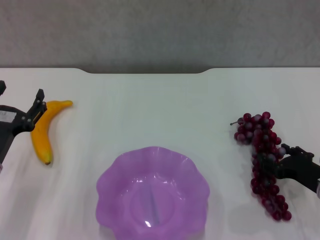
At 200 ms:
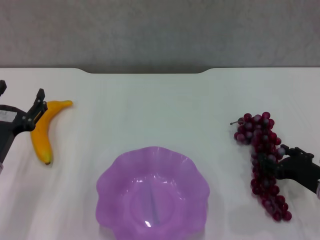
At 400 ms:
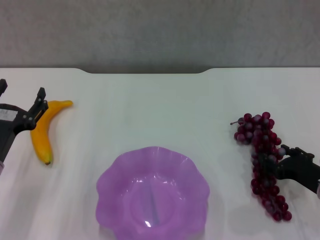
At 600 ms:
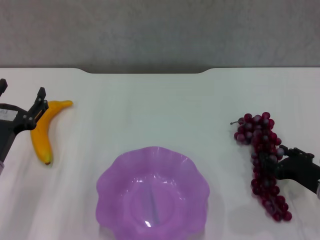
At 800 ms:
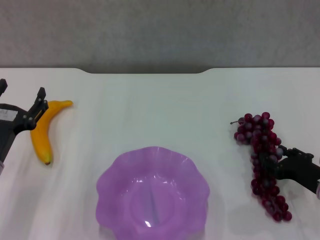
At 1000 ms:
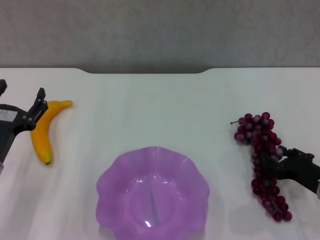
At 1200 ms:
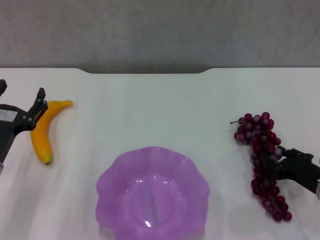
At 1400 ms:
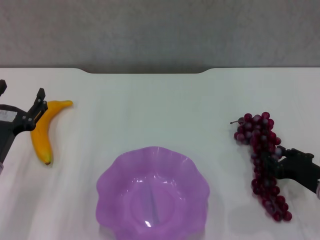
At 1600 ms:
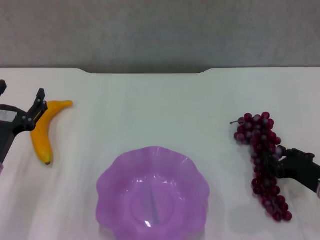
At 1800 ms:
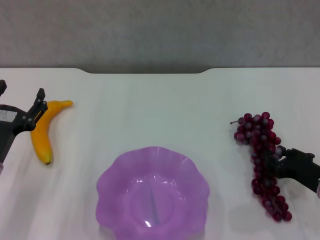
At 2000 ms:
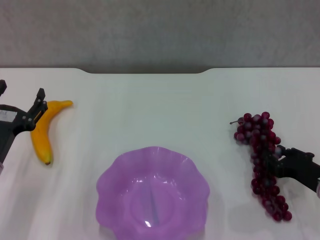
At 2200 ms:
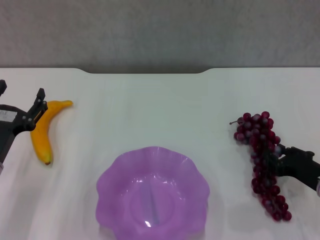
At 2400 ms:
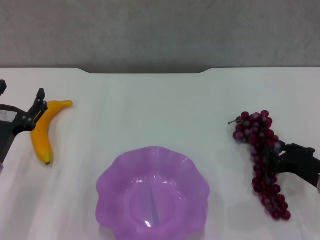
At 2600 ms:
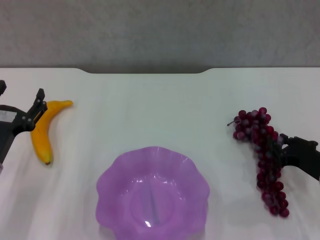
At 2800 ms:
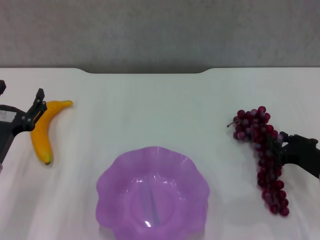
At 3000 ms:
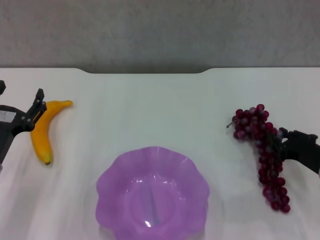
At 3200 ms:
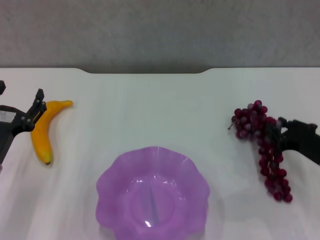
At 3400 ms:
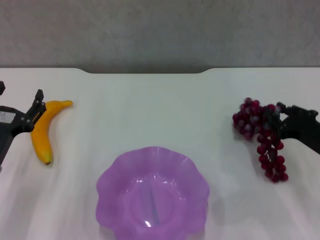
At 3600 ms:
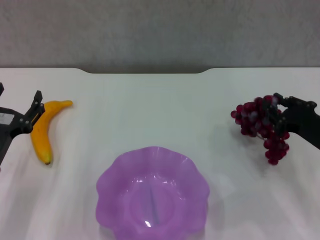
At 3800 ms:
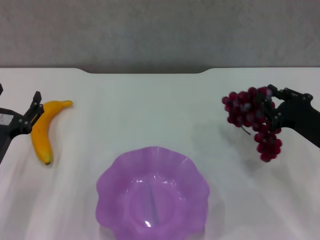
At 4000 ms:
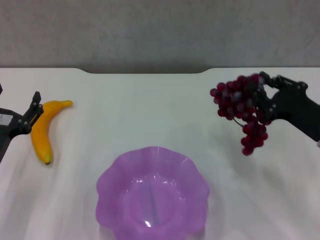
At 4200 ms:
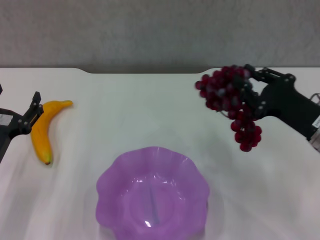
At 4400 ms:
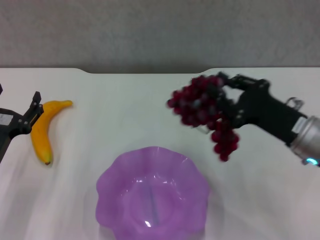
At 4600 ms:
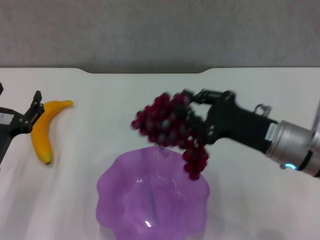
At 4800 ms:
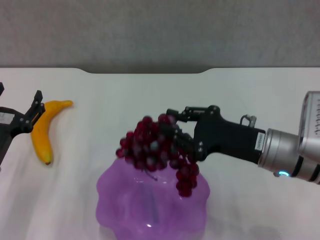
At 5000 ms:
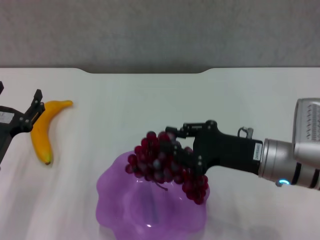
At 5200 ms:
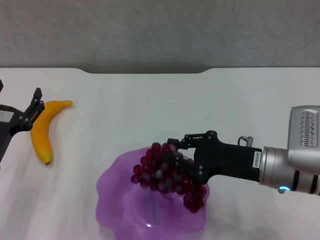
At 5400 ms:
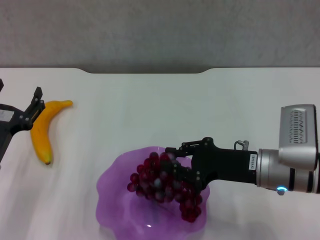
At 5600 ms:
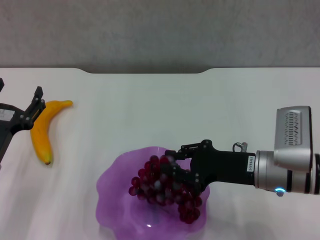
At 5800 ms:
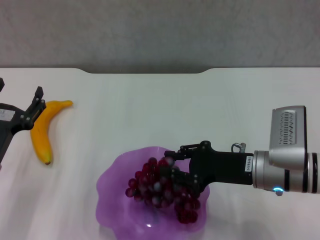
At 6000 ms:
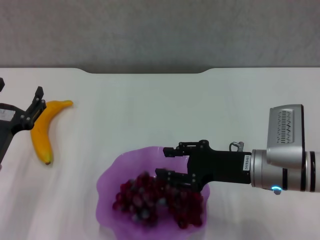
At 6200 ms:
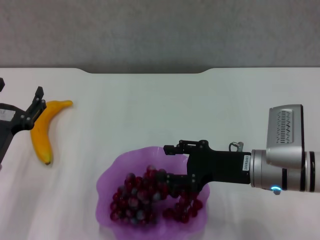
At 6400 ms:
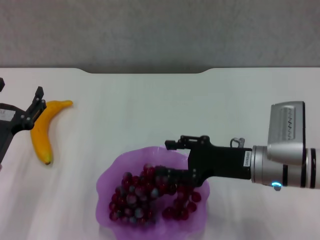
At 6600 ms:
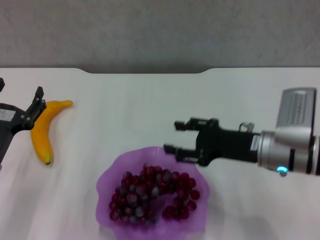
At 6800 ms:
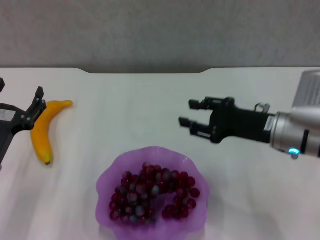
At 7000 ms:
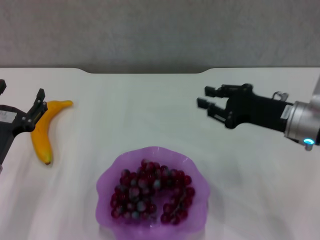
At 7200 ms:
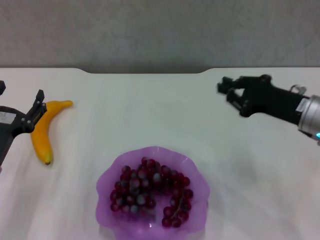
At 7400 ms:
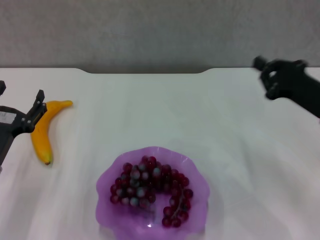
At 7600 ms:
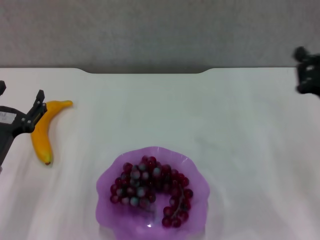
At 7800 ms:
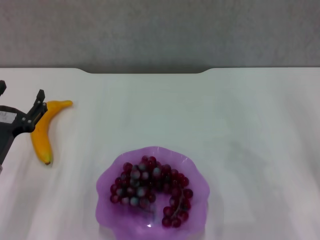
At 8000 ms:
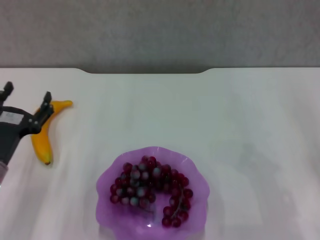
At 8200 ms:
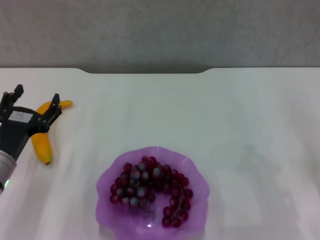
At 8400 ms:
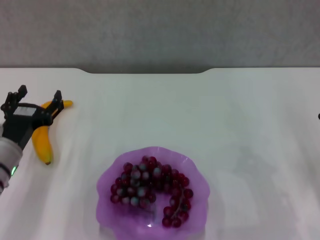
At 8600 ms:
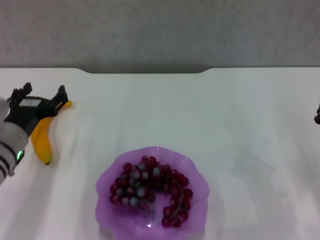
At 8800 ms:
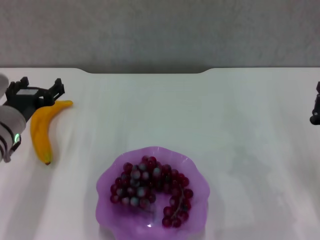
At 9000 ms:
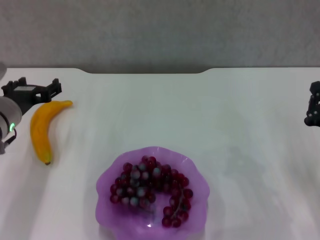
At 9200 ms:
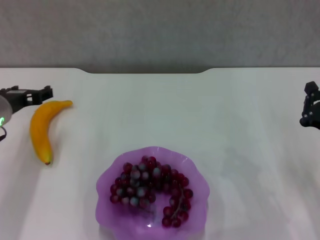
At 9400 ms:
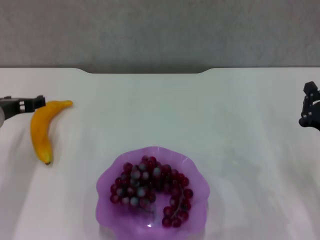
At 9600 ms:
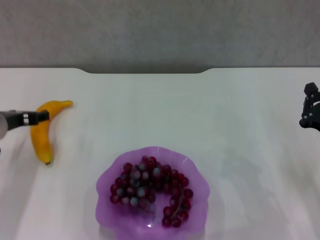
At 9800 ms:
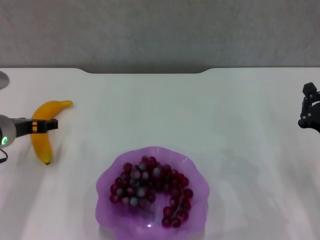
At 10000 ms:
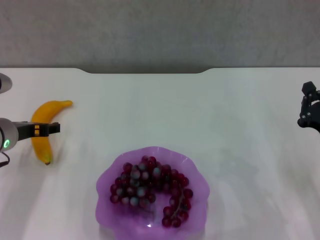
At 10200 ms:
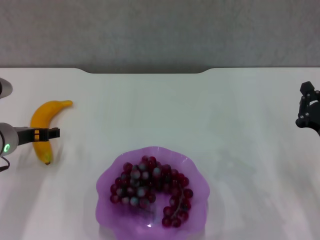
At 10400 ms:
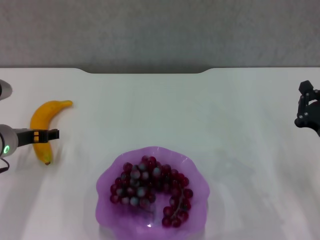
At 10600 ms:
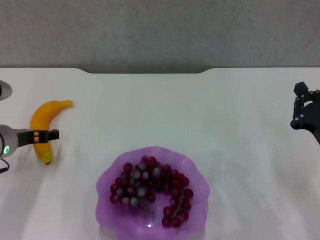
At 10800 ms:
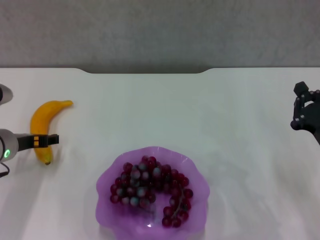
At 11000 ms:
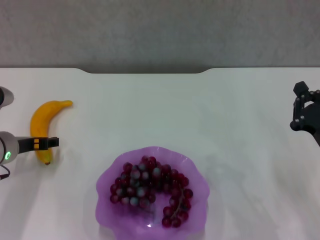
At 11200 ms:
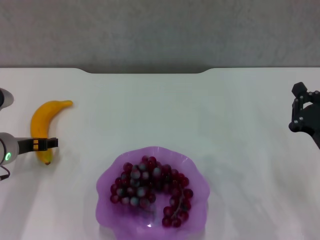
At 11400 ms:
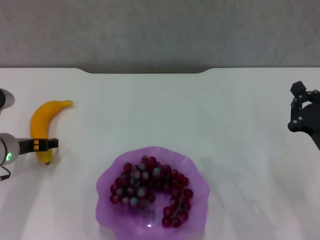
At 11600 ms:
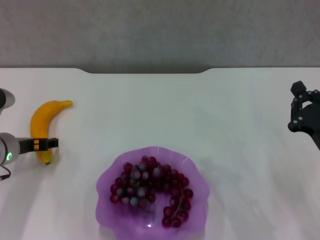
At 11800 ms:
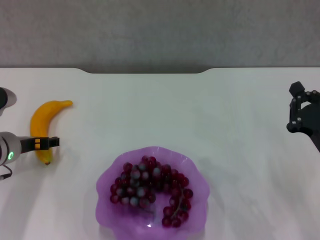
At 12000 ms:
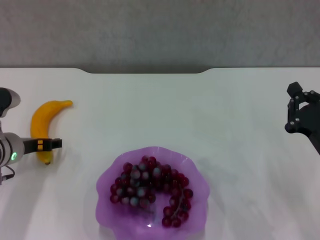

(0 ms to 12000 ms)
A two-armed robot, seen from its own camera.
Step, 2000 ms - 6400 ms: Place the grape in the purple plate with right gripper.
1600 ms - 3000 ms: There are only small adjustments of the grippers.
3000 ms - 4400 ms: The right gripper is displaced upward and to the left by approximately 10 cm.
4400 ms - 6000 ms: The right gripper goes some 5 cm to the left.
6000 ms - 7600 ms: The right gripper moves to the right, about 10 cm, and closes.
7600 ms - 9000 ms: The right gripper ends up roughly 5 cm from where it was. Meanwhile the left gripper heads forward and upward, covering about 10 cm.
10400 ms - 12000 ms: The grippers stay close to where they were, moving slightly.

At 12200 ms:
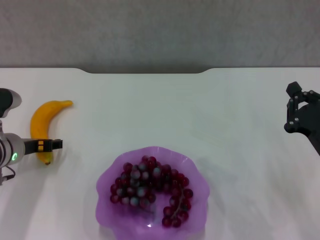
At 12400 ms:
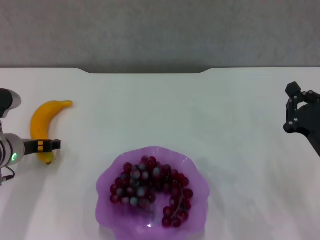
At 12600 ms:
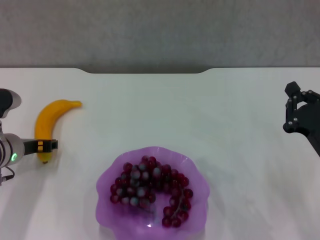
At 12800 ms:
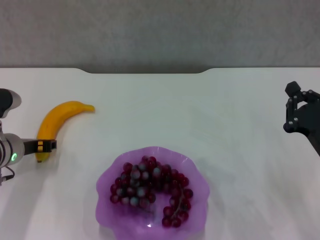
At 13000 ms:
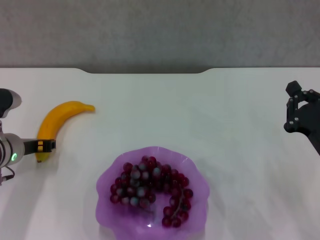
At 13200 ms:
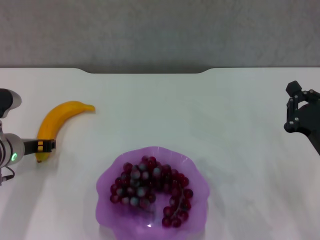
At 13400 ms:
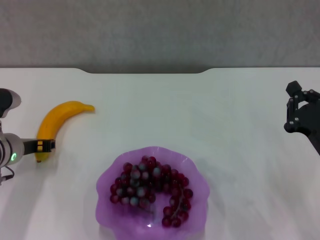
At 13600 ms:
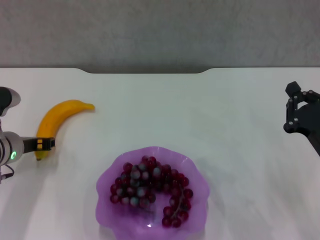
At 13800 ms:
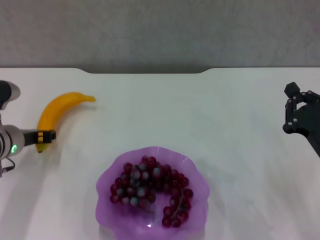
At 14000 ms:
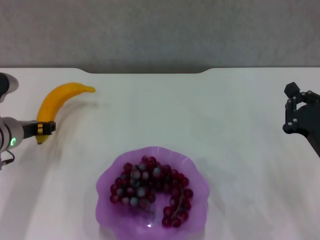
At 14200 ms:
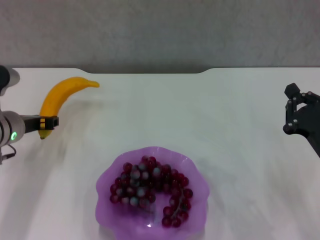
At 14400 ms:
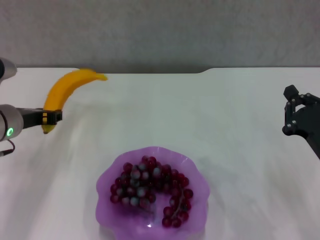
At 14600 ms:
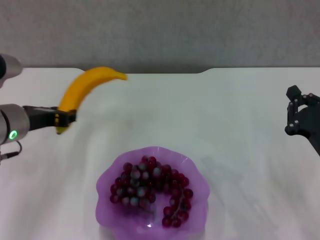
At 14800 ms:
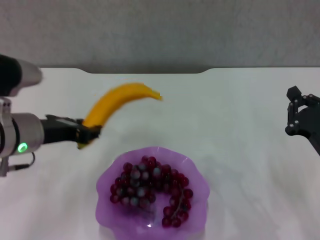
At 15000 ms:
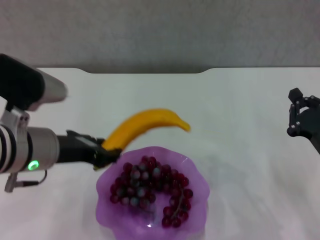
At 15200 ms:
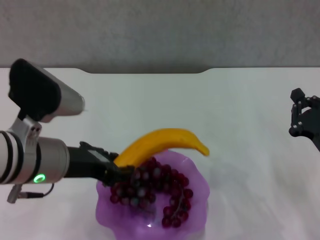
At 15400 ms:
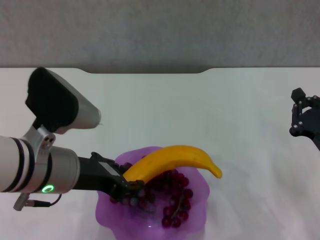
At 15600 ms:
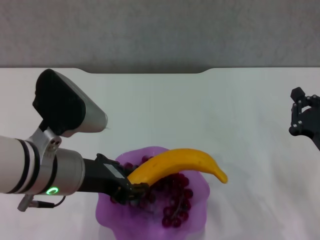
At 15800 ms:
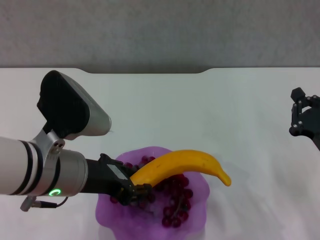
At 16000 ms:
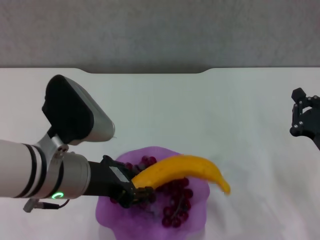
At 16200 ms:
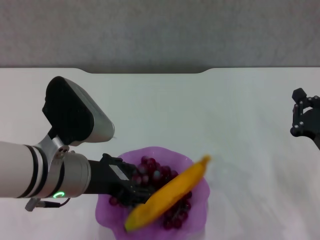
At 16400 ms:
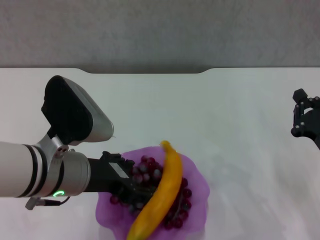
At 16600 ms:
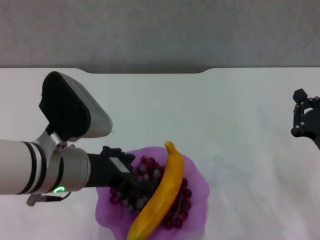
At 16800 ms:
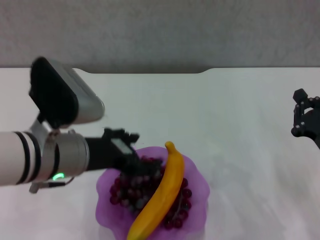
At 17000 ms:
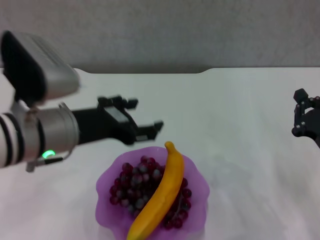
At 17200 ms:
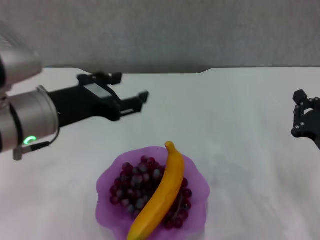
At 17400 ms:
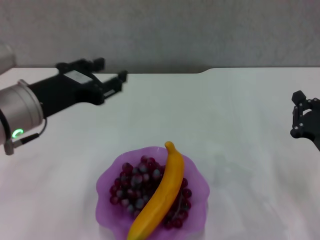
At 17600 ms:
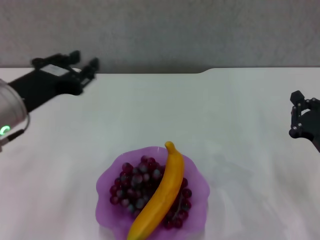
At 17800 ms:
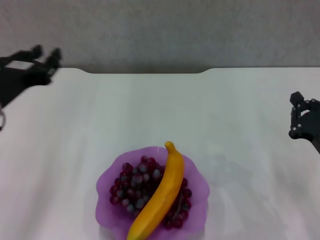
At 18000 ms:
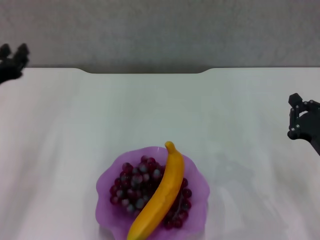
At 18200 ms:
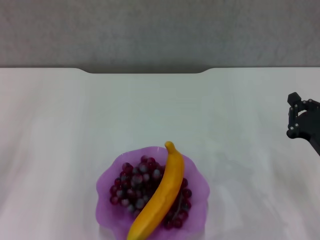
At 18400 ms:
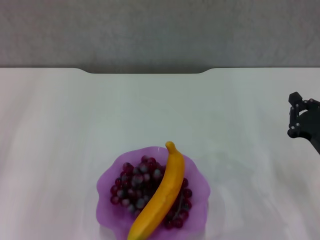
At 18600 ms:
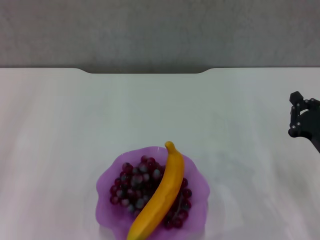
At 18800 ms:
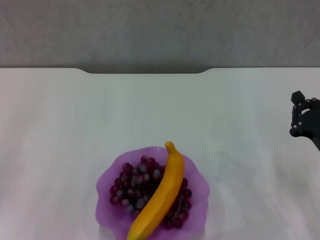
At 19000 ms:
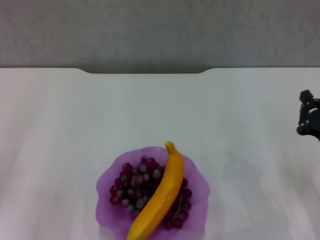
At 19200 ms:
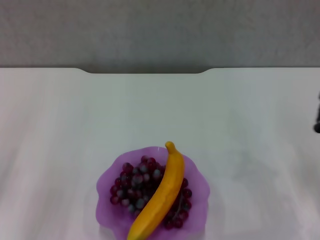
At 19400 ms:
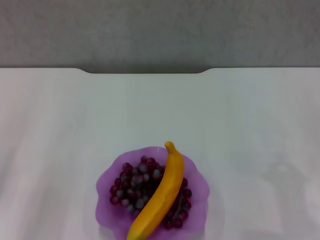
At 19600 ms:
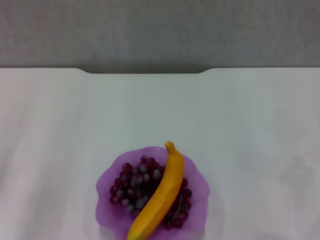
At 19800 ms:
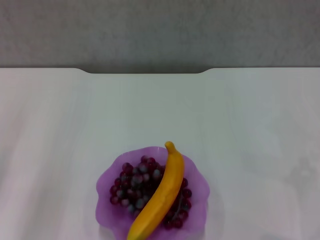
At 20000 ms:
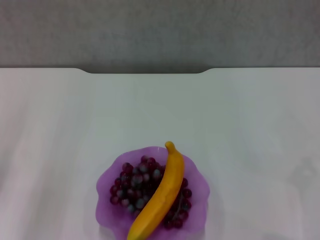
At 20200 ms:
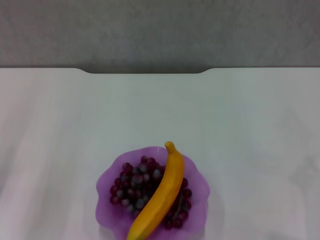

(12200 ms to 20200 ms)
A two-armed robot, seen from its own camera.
Step, 13000 ms - 16400 ms: Place the banana in the purple plate with left gripper.
12200 ms - 13800 ms: The left gripper closes up.
13800 ms - 15400 ms: The left gripper is displaced to the right, backward and upward by approximately 20 cm.
17000 ms - 18600 ms: The left gripper travels to the left and downward by roughly 20 cm, and closes.
18600 ms - 20200 ms: The right gripper shifts roughly 10 cm to the right.
